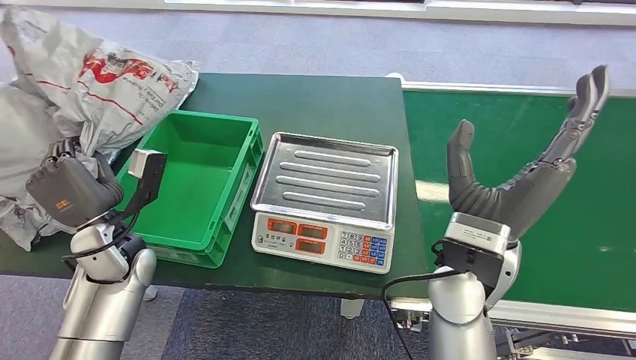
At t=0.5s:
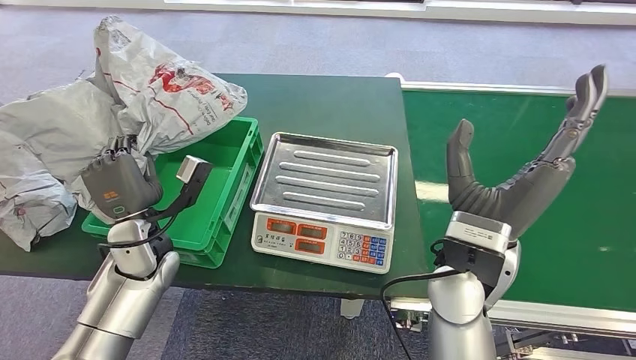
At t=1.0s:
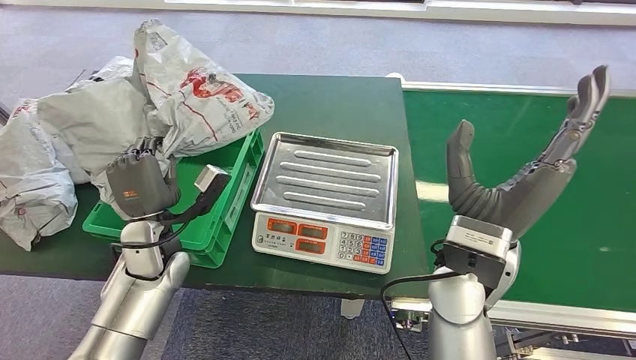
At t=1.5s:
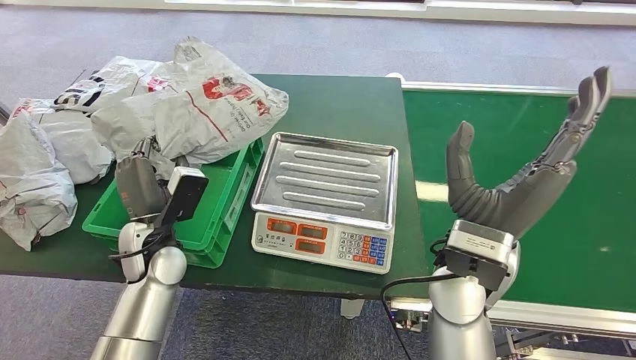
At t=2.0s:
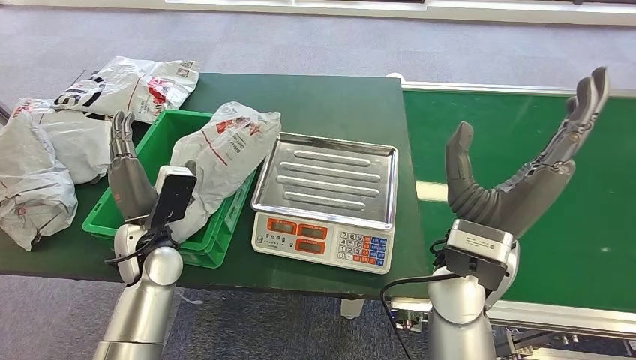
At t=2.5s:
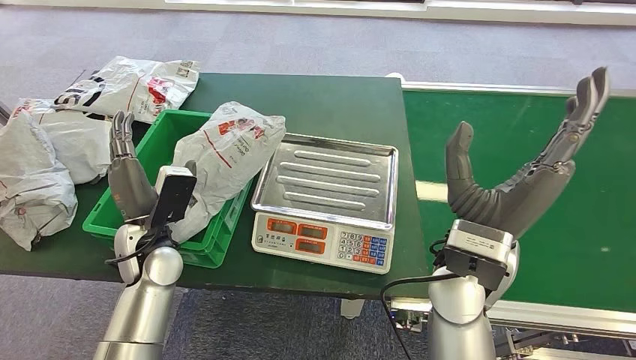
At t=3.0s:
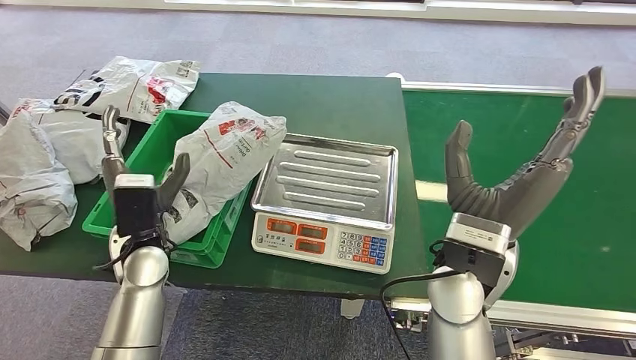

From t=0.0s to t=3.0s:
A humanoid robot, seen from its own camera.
Step, from t=0.0s to t=3.0s: Place the package into the parcel locker.
